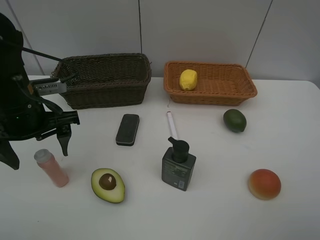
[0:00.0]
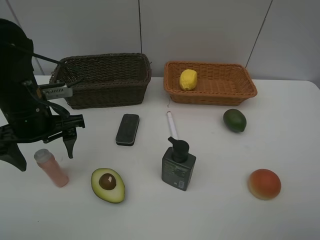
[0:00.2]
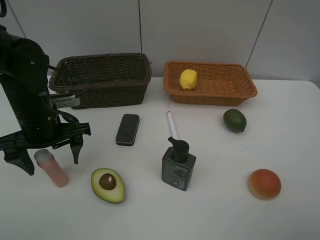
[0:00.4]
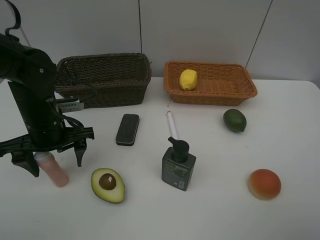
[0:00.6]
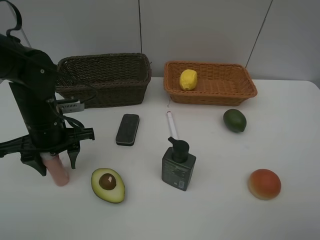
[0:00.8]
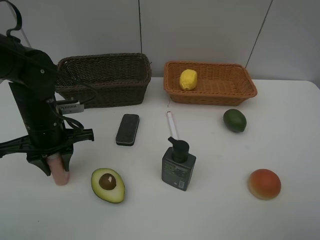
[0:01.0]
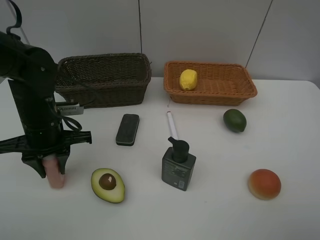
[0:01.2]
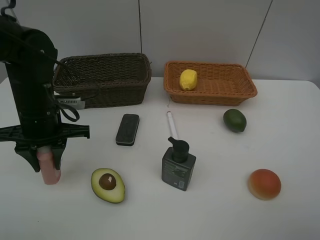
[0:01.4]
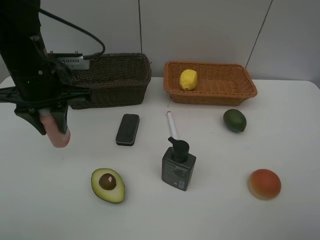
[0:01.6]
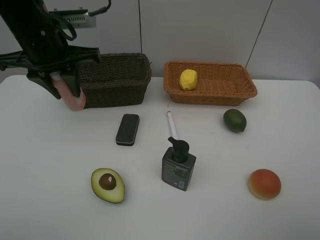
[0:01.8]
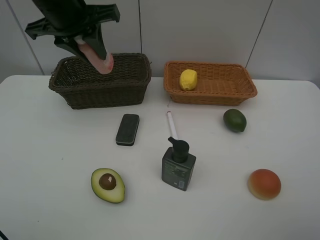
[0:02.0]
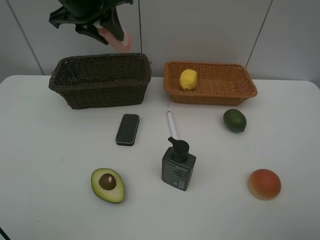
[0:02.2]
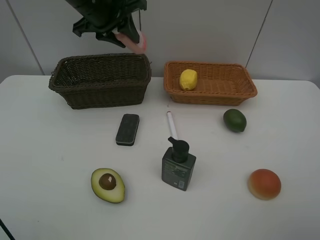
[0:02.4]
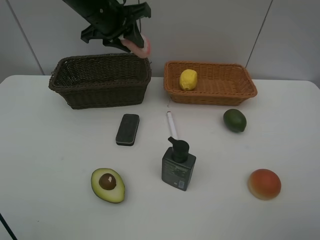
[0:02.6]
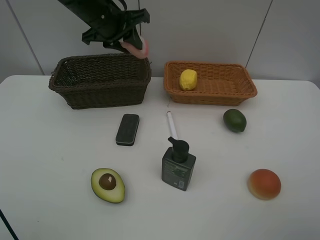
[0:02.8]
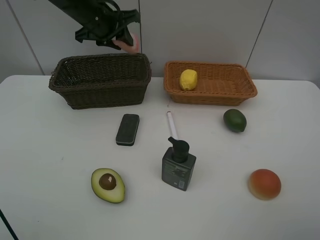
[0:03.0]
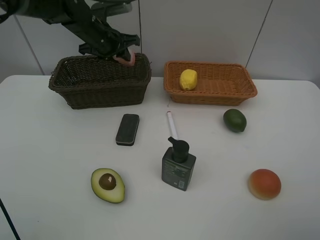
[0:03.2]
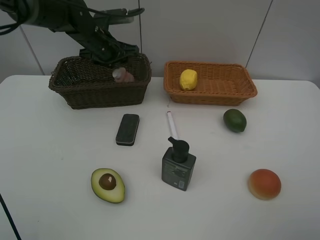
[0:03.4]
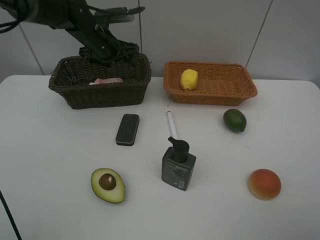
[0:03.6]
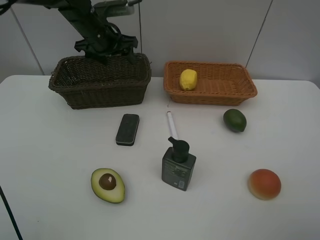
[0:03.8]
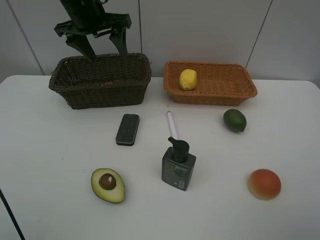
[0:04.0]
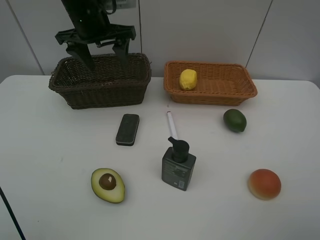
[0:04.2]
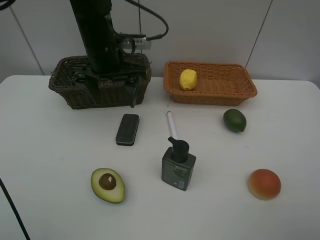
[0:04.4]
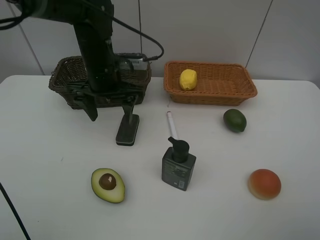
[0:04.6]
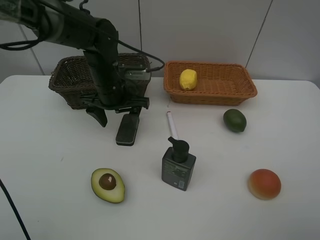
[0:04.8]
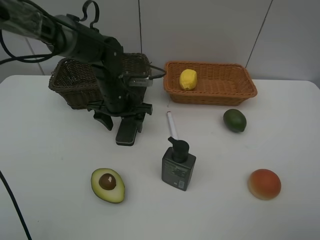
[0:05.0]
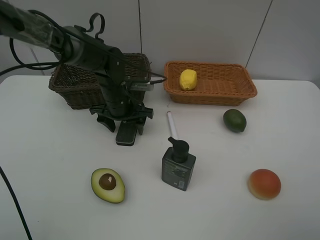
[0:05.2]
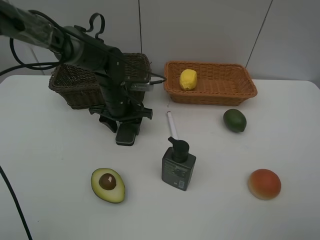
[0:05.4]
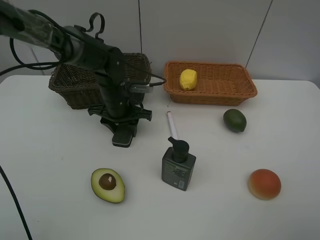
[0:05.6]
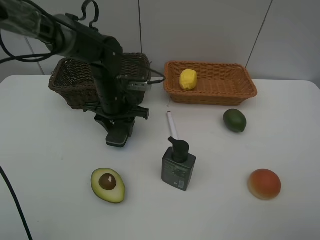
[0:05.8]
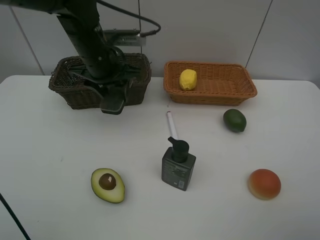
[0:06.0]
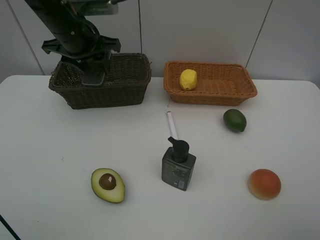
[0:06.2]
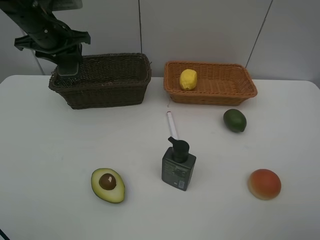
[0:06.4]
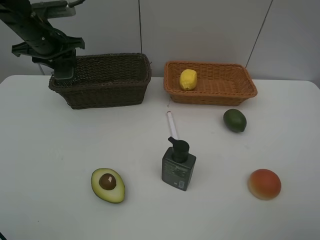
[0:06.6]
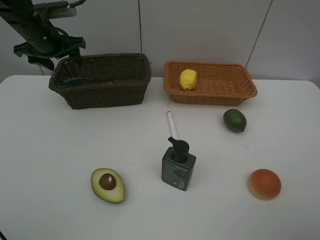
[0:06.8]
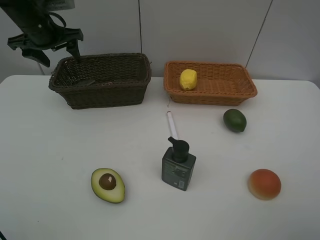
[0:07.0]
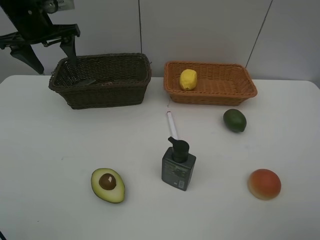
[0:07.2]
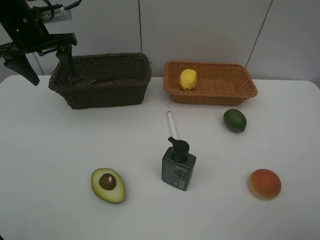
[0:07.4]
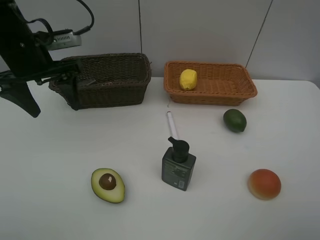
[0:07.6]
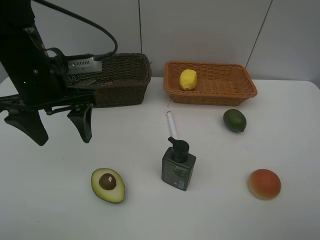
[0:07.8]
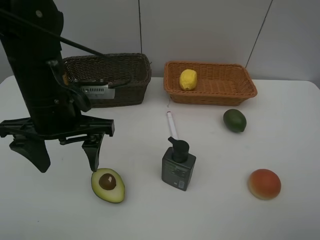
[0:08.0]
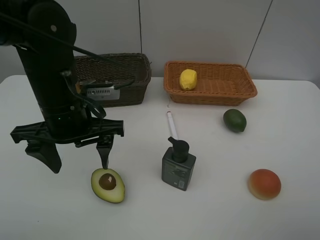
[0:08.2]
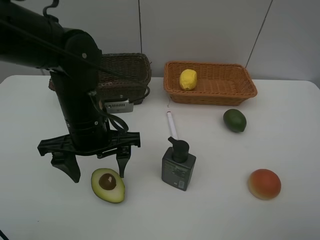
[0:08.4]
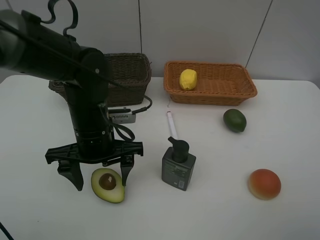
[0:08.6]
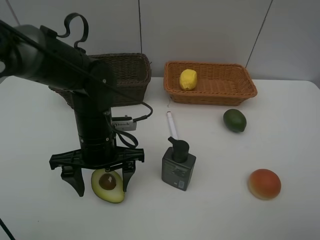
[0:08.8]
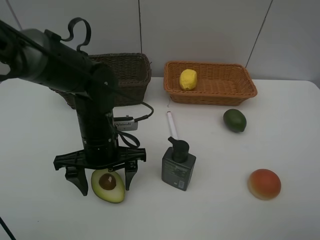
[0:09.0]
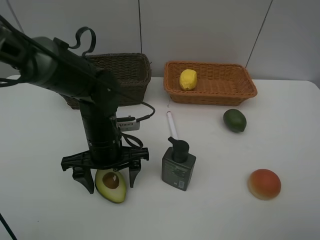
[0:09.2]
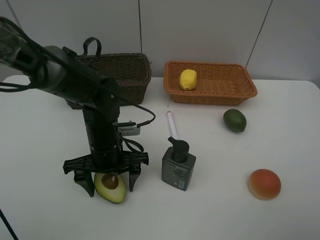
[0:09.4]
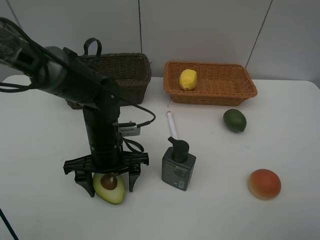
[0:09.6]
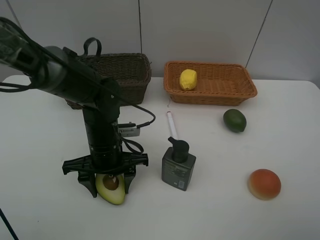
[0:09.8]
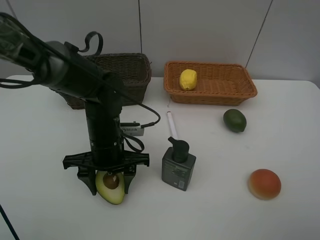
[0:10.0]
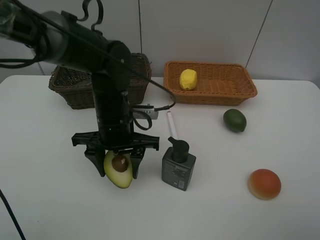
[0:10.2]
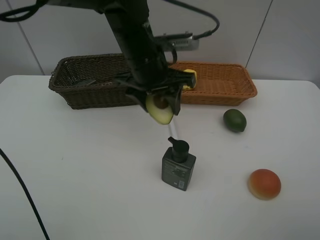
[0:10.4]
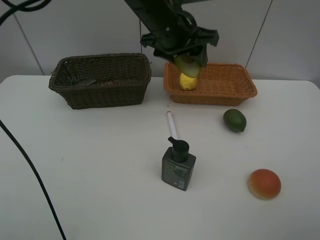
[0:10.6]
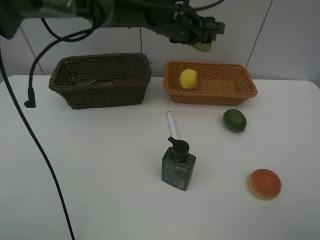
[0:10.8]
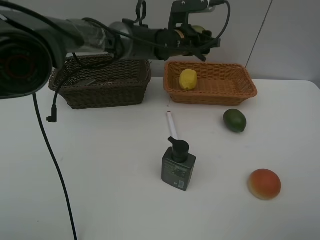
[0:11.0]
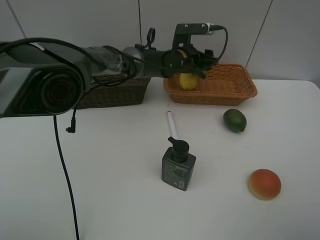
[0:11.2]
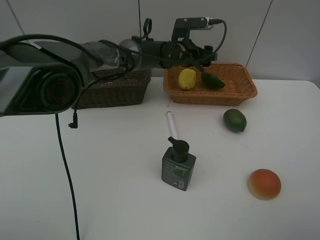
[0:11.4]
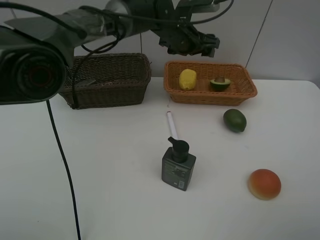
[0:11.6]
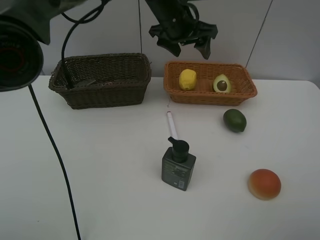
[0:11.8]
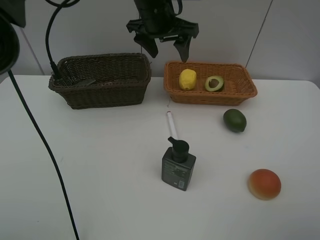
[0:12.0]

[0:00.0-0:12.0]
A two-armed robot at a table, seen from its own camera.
Task of the whole recording: Place multiple objects separately in different baskets.
Step, 0:01.4 to 0:03.8: Place the laundry detergent in the dark basket with left gripper.
Step, 0:04.0 to 0:05.8: Pick up blackboard eraser with left gripper.
Step, 0:06.0 to 0:06.8: Place the blackboard eraser in the dark basket with left gripper.
Step, 0:07.0 to 0:10.2: Pick up the avocado with left gripper.
Step, 0:10.4 to 0:11.4: Place the avocado in the light basket with left gripper.
0:00.0 to 0:01.6: The left gripper is displaced upward and forward by about 5 cm, and closes its fingers.
0:01.6 to 0:03.0: The left gripper moves forward, roughly 15 cm.
0:03.0 to 0:04.4: The left gripper goes roughly 10 cm backward, and opens up.
0:04.4 to 0:06.0: The left gripper moves some 10 cm downward and comes back, and closes.
0:06.0 to 0:07.6: The left gripper is displaced to the left and backward by some 10 cm, and opens.
0:07.6 to 0:09.0: The left gripper heads downward, to the right and backward, covering approximately 20 cm.
0:09.0 to 0:10.4: The left gripper travels upward, forward and to the right by approximately 20 cm, and closes.
0:10.4 to 0:12.0: The left gripper goes about 10 cm forward, goes downward and returns, some 10 cm each way, and opens.

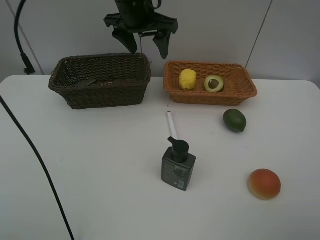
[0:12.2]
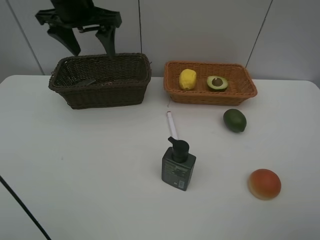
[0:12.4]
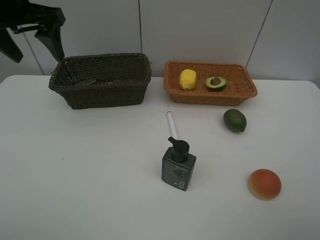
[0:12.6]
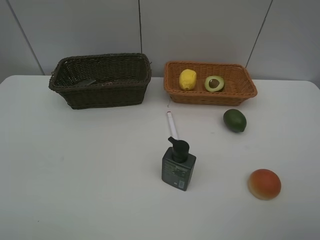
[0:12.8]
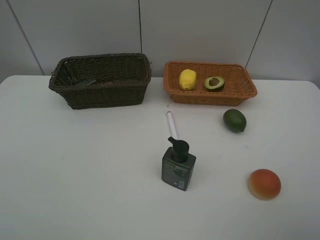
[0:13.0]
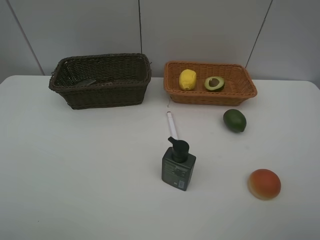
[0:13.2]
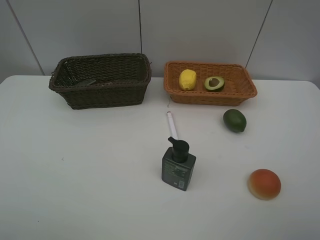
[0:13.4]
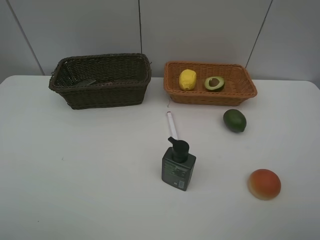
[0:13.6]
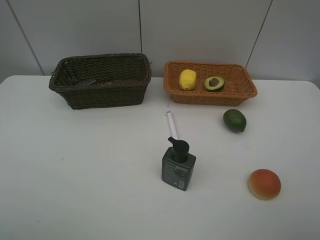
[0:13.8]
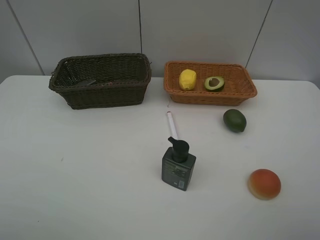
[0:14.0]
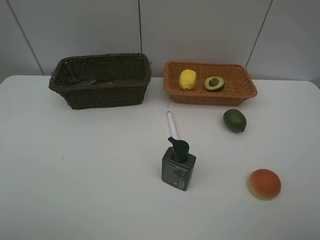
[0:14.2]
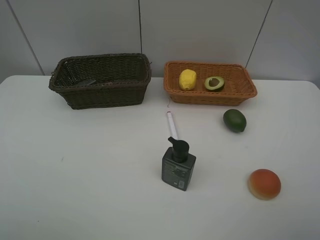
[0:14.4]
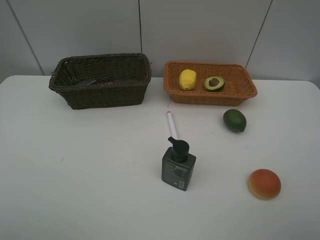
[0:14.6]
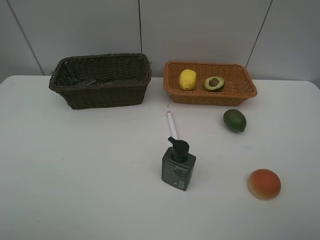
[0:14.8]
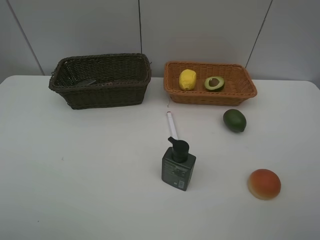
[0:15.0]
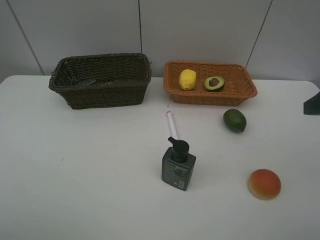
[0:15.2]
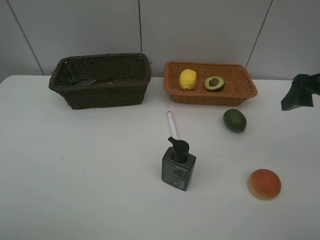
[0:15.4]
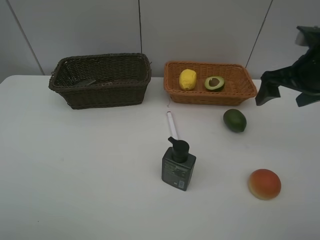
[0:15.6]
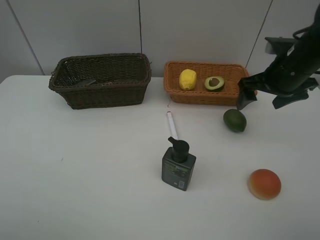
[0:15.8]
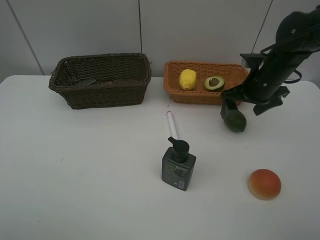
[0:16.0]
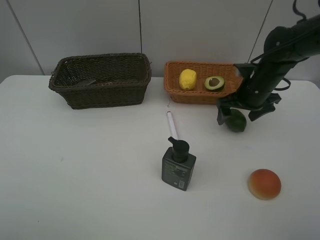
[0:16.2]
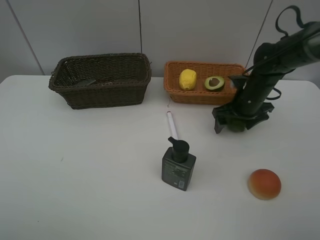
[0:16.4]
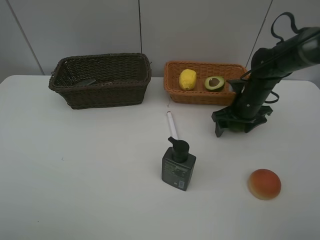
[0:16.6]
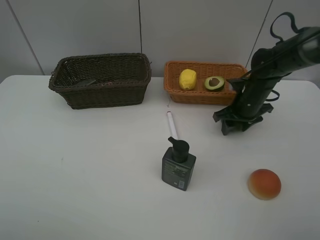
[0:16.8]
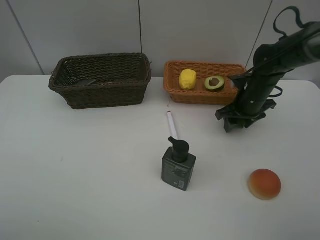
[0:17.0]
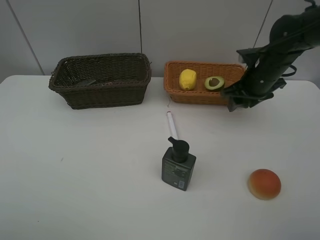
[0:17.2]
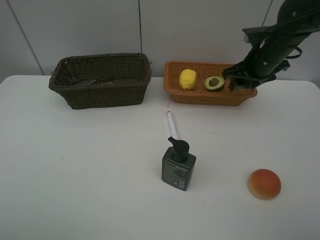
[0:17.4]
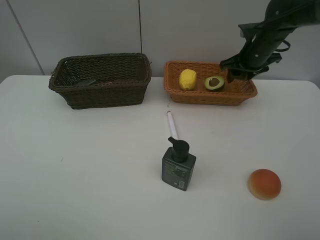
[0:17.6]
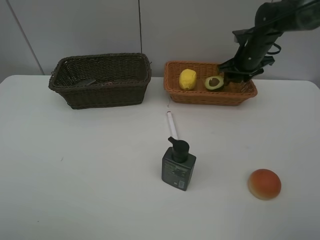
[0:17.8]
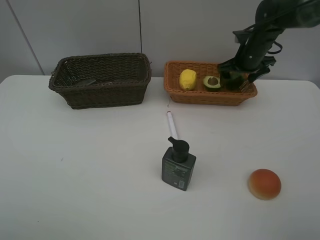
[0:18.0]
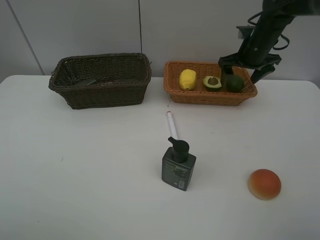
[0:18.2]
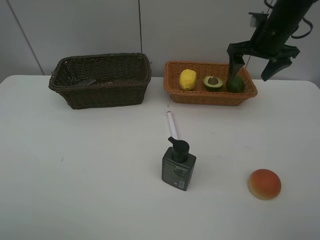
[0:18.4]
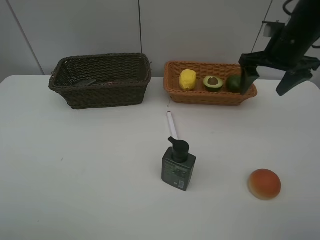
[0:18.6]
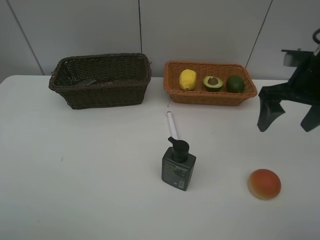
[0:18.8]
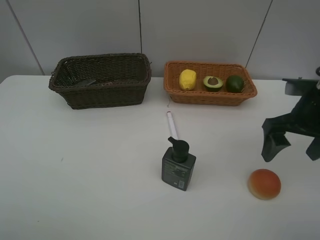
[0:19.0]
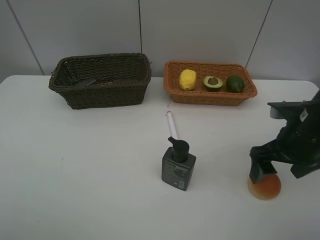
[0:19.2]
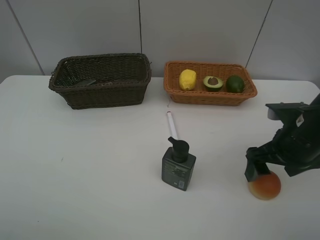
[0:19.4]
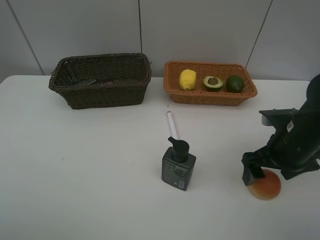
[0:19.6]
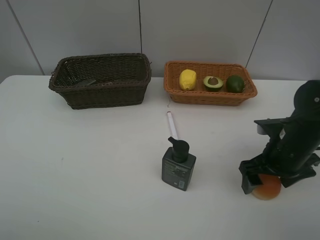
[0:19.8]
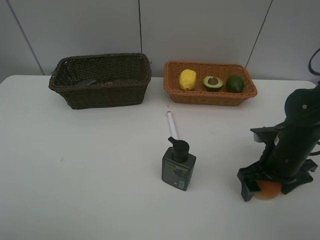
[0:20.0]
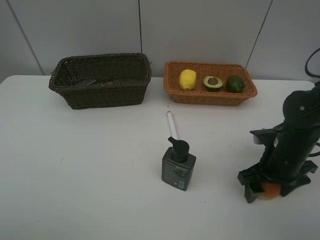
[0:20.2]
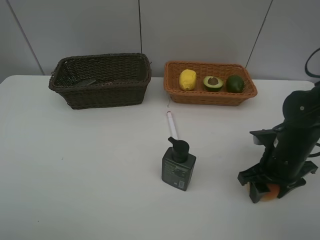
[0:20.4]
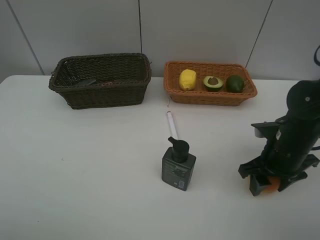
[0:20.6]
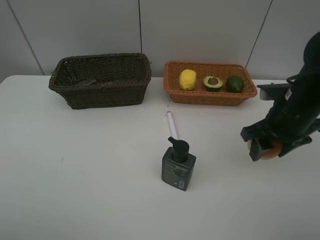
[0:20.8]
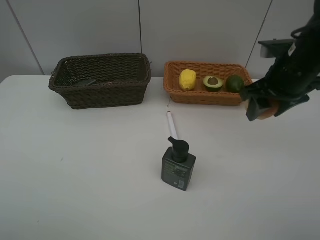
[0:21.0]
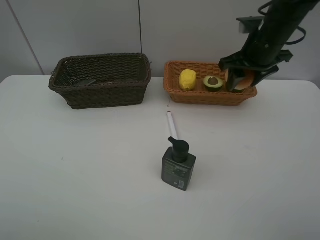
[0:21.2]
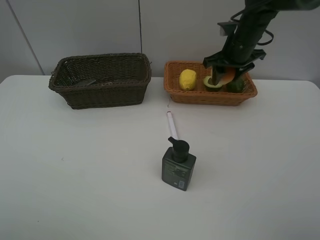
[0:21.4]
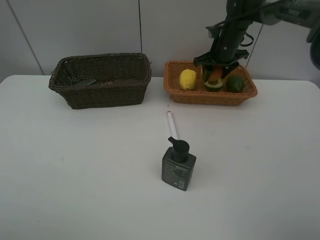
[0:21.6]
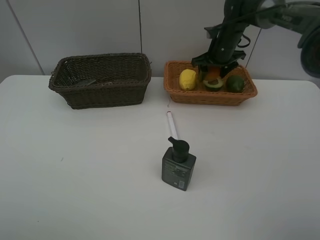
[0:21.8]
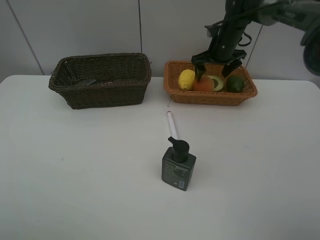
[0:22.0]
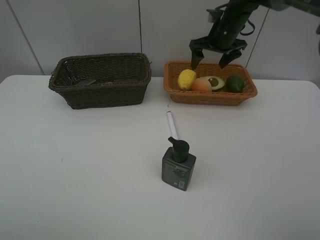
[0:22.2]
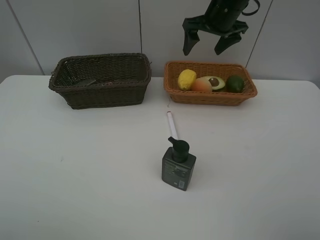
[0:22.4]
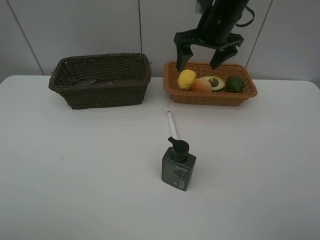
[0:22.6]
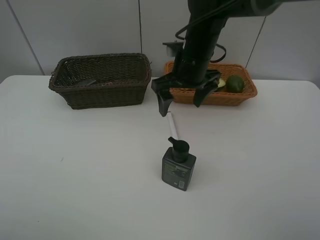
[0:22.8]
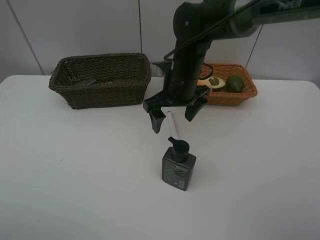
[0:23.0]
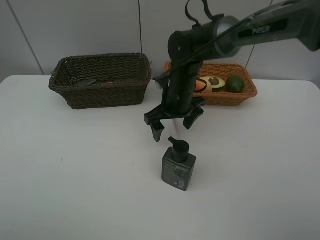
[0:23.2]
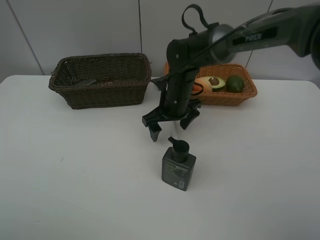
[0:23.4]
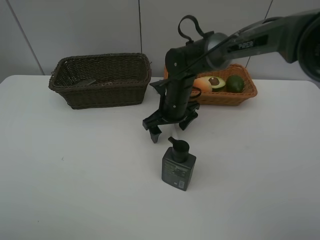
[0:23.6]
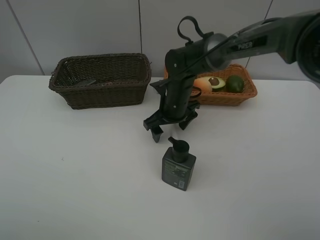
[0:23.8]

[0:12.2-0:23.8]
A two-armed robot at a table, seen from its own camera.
Task of the whole recording: Place multiple objects separately in different baskets.
Step, 0:12.2 to 0:17.0: Pick up the lime with right gripper.
Step, 0:17.2 to 0:18.2: Place the lime in the light basket with right gripper.
Step, 0:18.4 to 0:20.6: Pick up egg yolk pastry with right gripper.
Step, 0:20.8 to 0:22.0: Place the egg yolk pastry in the light basket with right gripper.
0:12.2 to 0:13.6: The left gripper moves backward and to the left, about 50 cm.
0:15.0 to 0:16.6: The right gripper shifts some 35 cm forward and downward.
0:16.6 to 0:18.0: The right gripper moves forward and upward, some 15 cm.
0:18.0 to 0:19.4: The right gripper goes approximately 25 cm backward.
0:19.4 to 0:21.0: The right gripper is displaced forward and upward by approximately 10 cm, and closes its fingers.
0:21.0 to 0:22.4: The right gripper is displaced forward and to the left by roughly 15 cm, and opens up.
0:22.4 to 0:23.8: The right gripper is displaced downward and to the left by about 20 cm.
